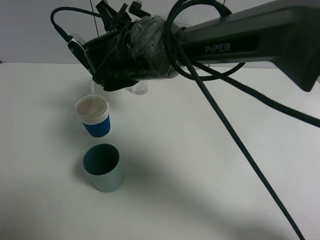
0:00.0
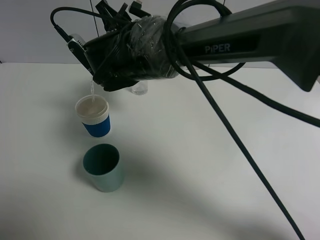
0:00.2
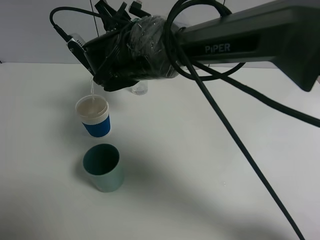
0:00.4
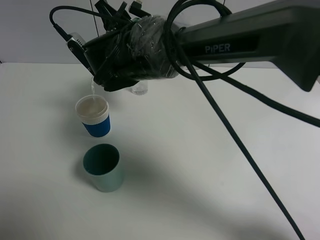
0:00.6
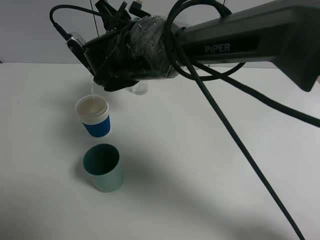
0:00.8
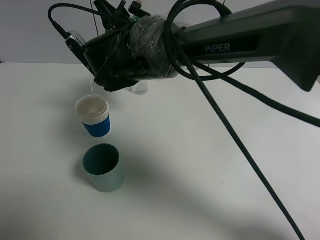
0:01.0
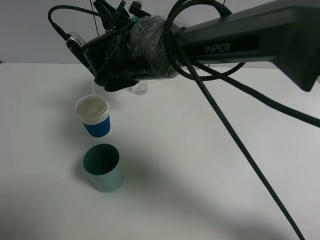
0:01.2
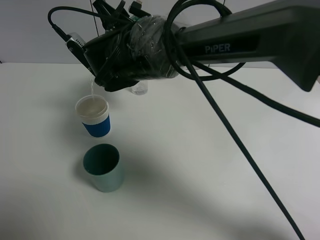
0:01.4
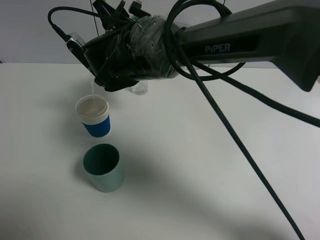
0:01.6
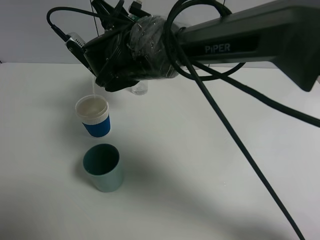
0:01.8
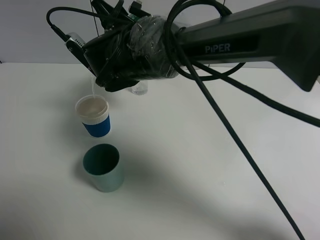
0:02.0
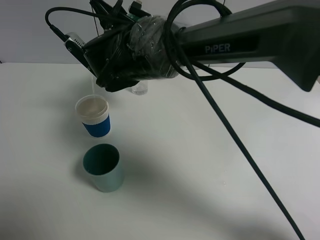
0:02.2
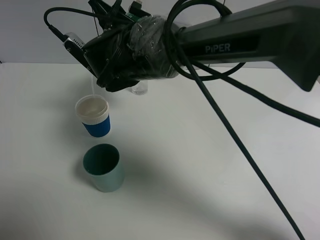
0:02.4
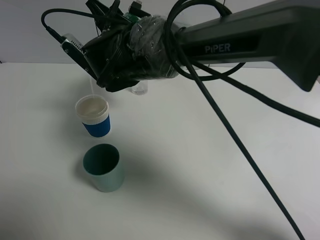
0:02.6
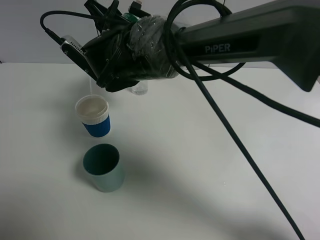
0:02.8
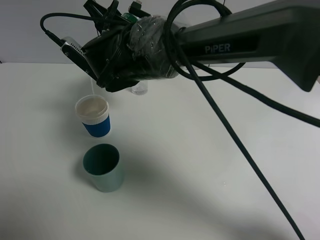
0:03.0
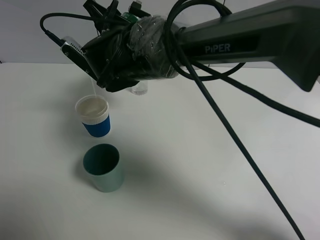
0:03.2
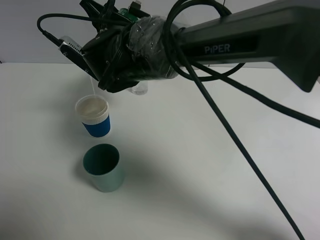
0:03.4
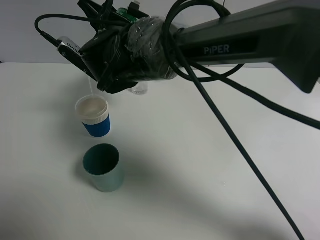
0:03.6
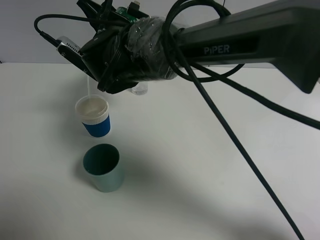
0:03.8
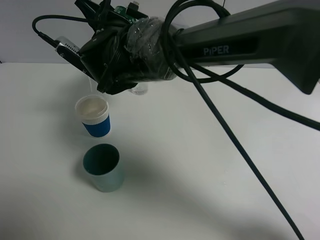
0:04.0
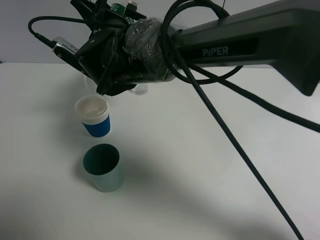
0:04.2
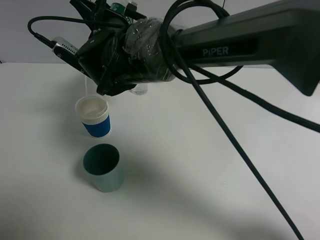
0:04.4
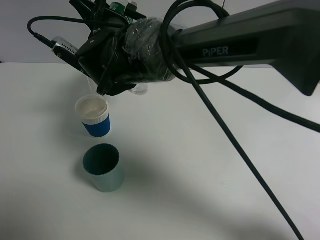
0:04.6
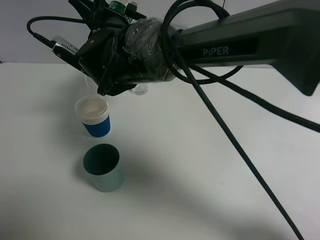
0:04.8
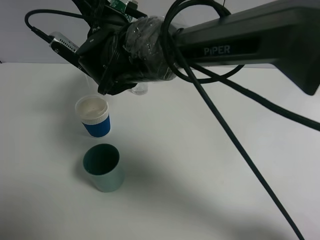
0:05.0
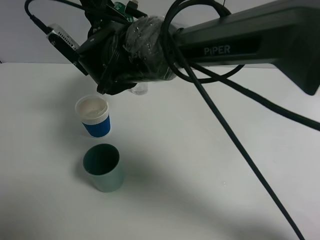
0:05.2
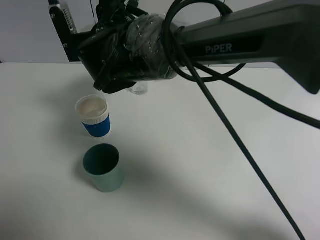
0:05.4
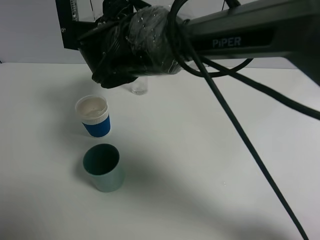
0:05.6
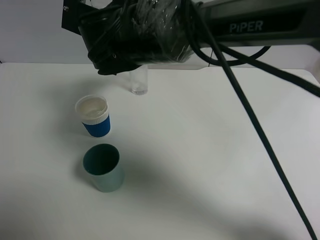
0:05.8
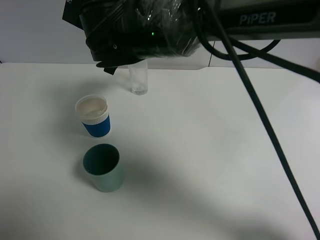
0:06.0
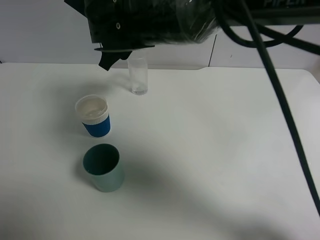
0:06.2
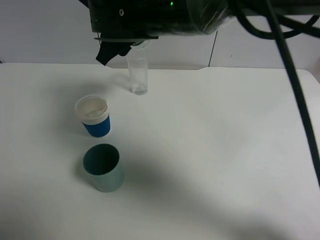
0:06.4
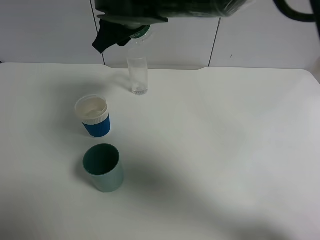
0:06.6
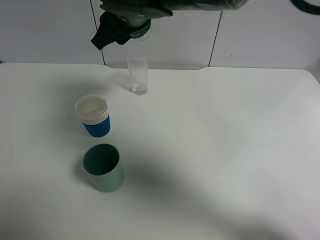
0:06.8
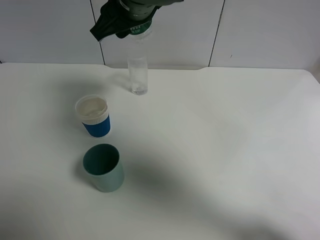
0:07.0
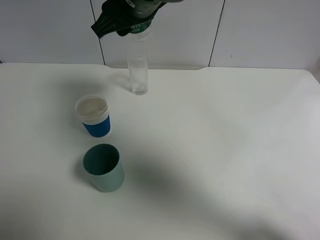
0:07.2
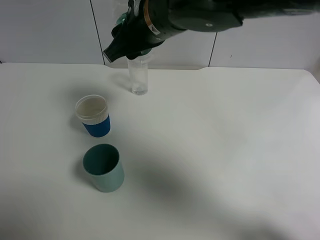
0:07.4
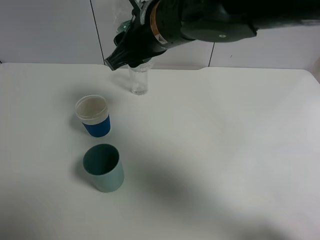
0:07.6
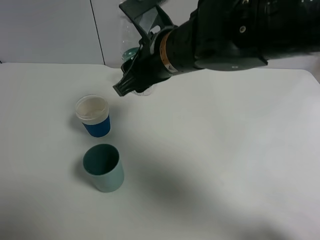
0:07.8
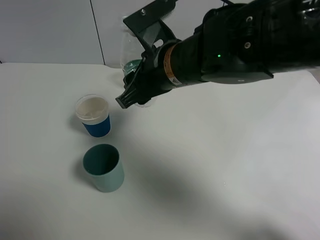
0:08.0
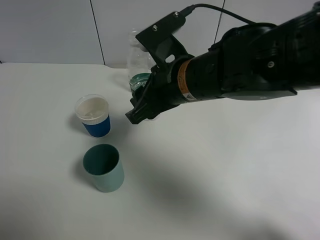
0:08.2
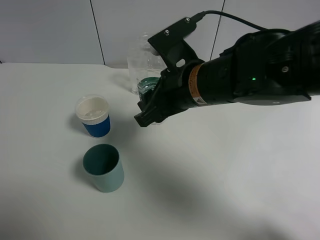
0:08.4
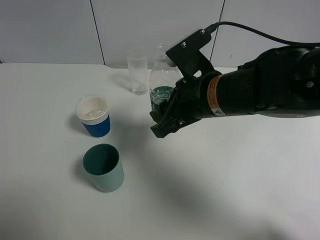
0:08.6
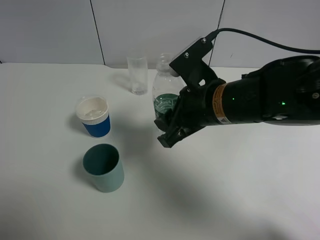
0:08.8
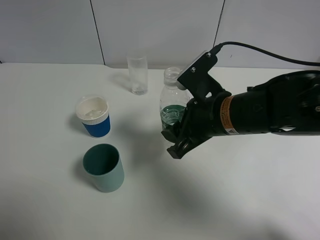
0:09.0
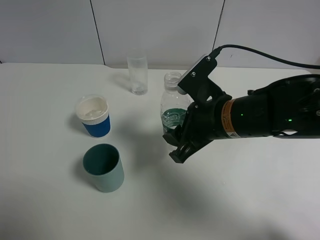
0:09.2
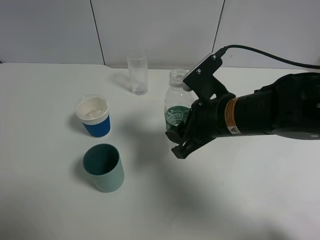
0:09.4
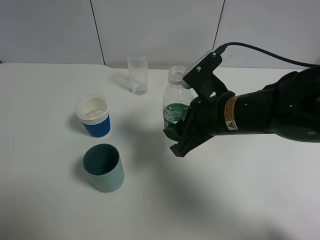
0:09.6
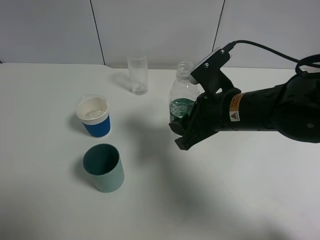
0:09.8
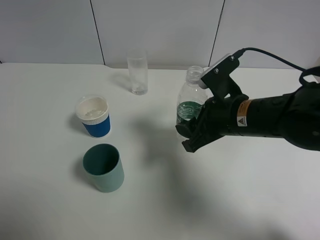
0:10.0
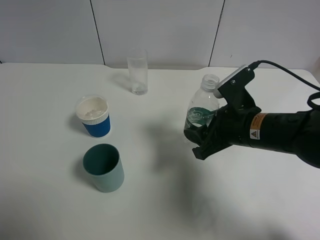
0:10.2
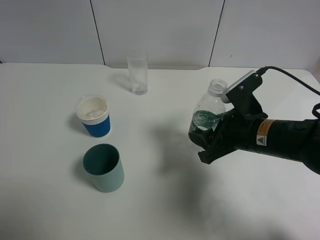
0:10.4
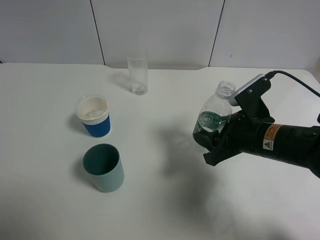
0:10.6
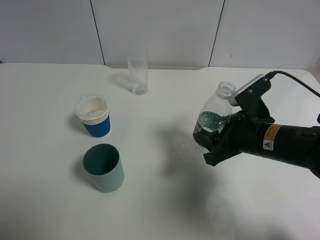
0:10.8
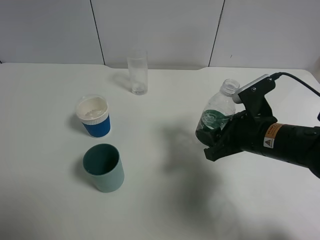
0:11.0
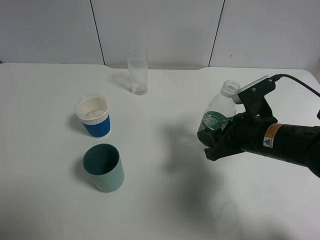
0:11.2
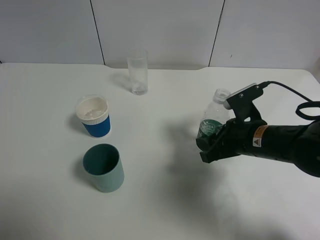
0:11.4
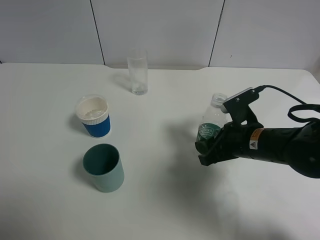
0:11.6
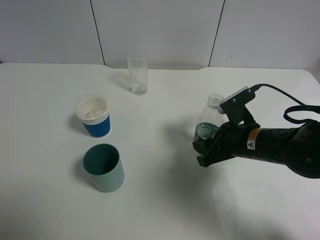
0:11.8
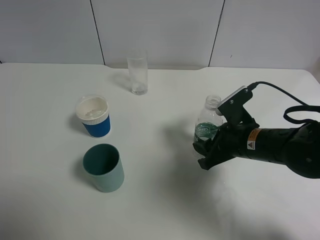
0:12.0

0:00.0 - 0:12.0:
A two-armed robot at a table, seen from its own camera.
Task of the whole recording: use a gripper to hold the bottle of the drink and pour it into a random cup.
Step, 0:00.0 - 0:05.8: Pour the mineral water into the paper cup with the right gripper.
0:00.0 - 0:01.6: Both grippers stay put.
0:01.6 - 0:04.4: There are only small adjustments of the grippers.
0:06.0 - 0:07.6: The right gripper goes roughly 5 cm to the right.
0:07.6 - 0:09.0: The right gripper moves downward, to the right and backward, about 15 cm.
0:09.0 - 0:10.4: The right gripper goes approximately 5 cm to the right.
0:10.4 - 0:12.0: There are only small adjustments of the grippers.

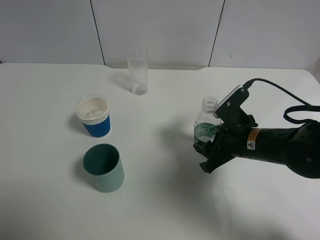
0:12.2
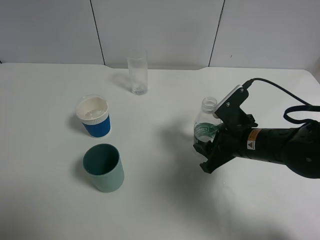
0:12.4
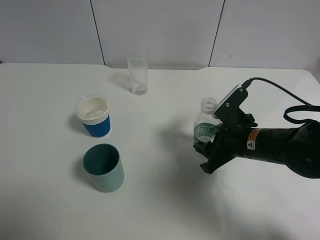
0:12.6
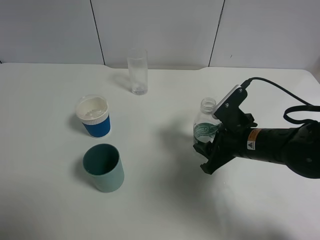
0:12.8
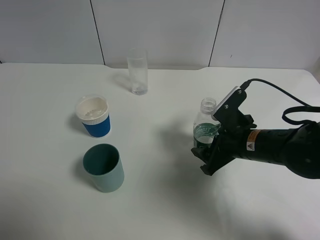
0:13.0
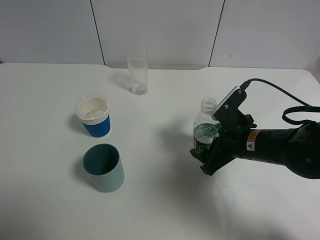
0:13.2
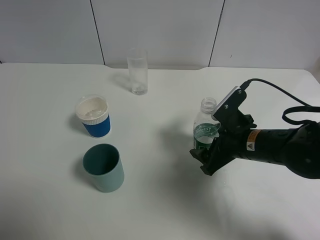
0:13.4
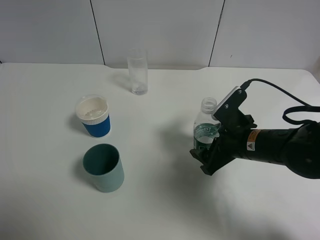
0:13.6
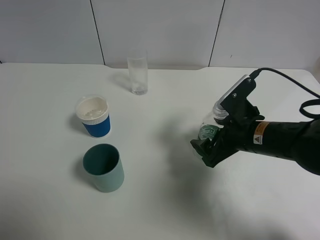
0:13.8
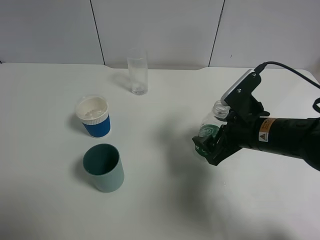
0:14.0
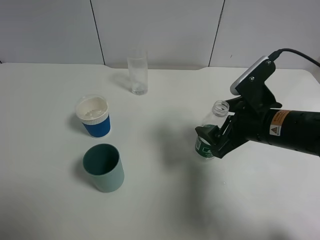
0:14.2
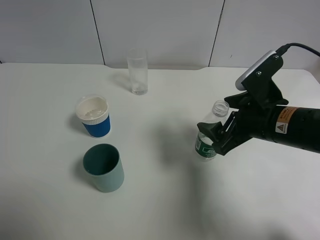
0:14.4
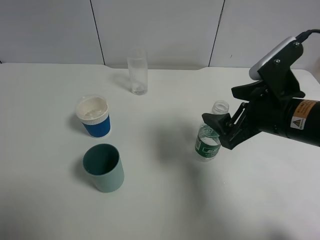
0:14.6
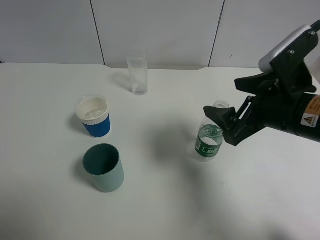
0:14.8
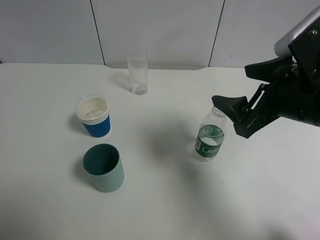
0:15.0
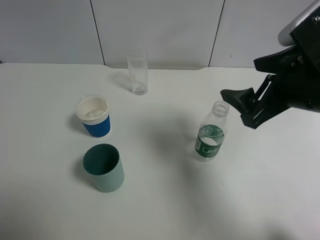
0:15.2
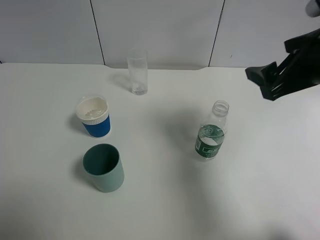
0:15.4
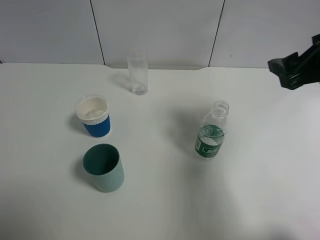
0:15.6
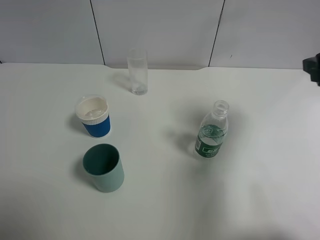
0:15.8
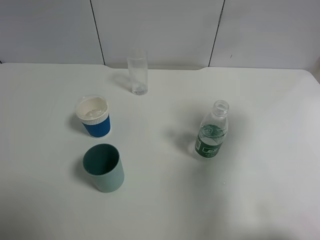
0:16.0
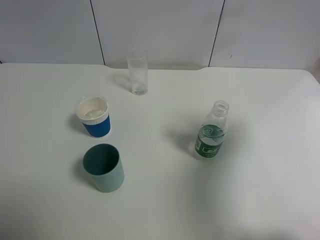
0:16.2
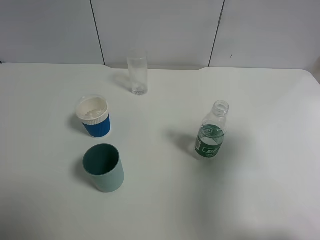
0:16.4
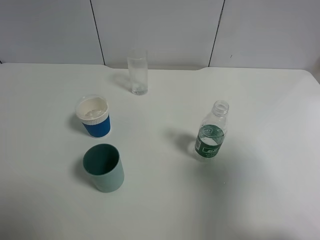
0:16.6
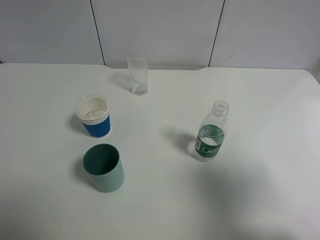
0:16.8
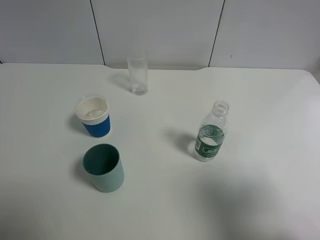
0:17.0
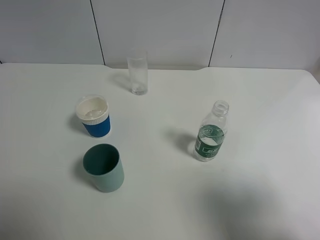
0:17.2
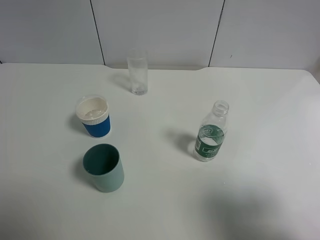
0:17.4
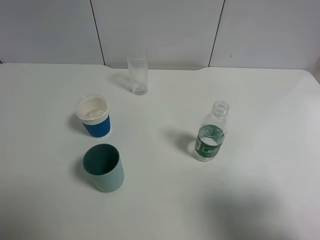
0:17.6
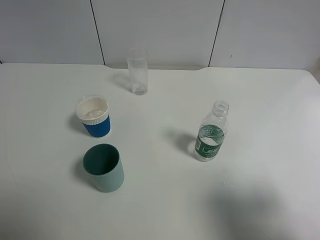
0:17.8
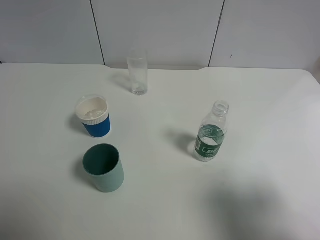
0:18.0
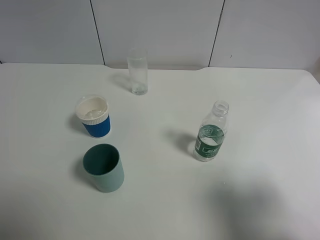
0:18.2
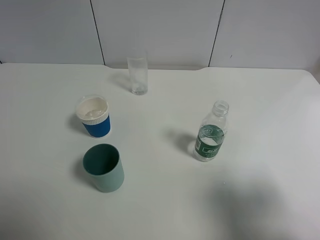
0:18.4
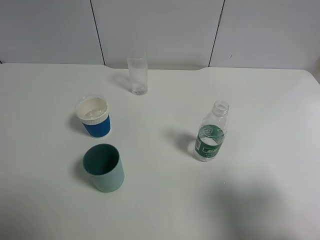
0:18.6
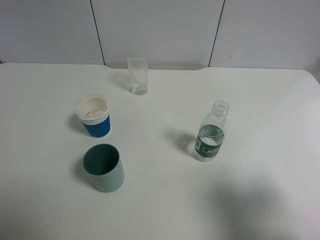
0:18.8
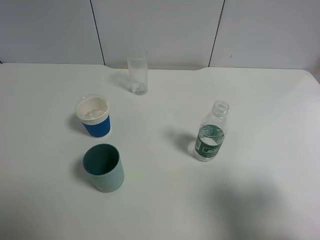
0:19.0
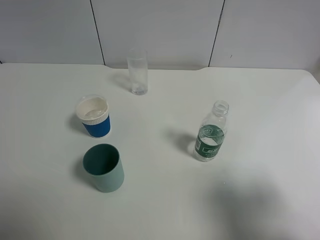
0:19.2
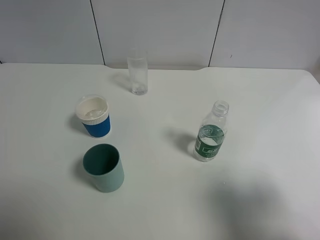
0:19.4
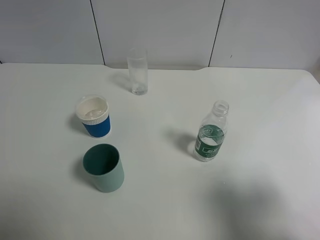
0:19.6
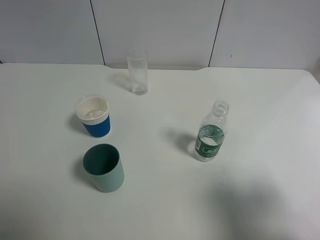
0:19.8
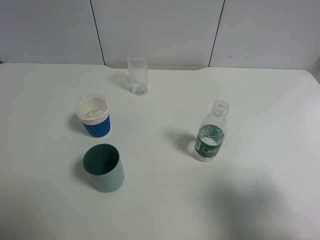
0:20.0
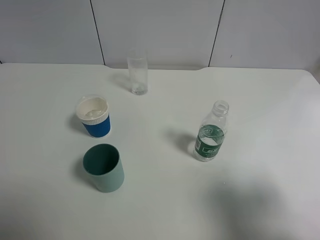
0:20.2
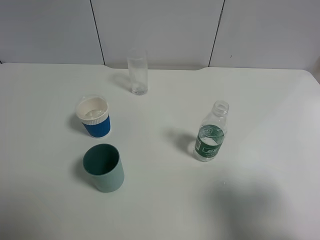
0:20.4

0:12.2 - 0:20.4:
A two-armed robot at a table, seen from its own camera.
Task of the whole recording: use a gripper to hold the bottle of the drink and pour it into a random cup.
Step, 0:12.2 - 0:14.4: Place the mineral water bottle on the table with the right gripper.
0:12.2 - 0:13.8: The right gripper opens.
0:13.8 - 0:15.4: The right gripper goes about 15 cm upward and to the right.
0:15.4 - 0:17.2: The right gripper travels backward by about 20 cm.
0:18.8 - 0:20.4: The two grippers keep their place.

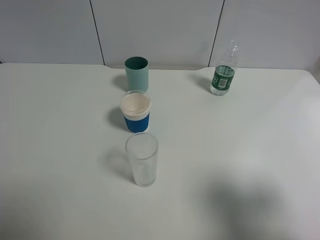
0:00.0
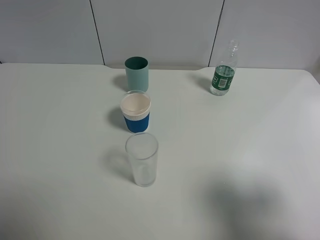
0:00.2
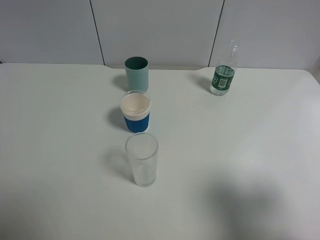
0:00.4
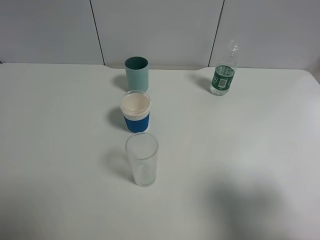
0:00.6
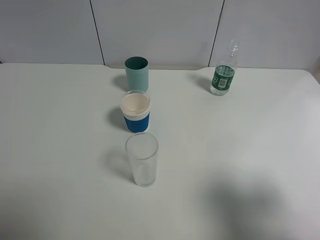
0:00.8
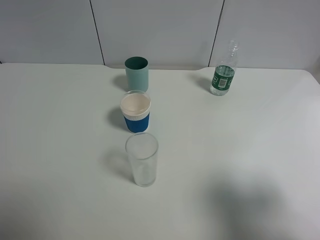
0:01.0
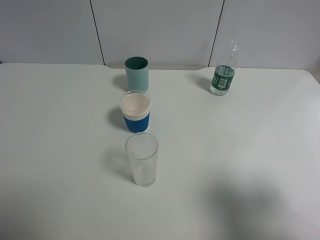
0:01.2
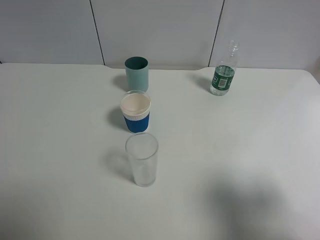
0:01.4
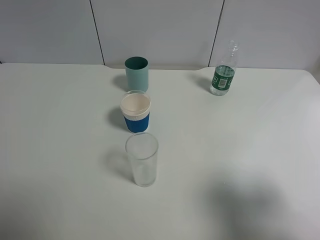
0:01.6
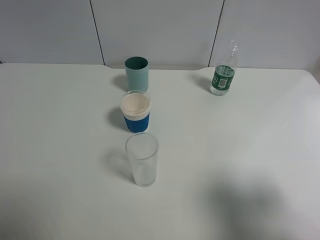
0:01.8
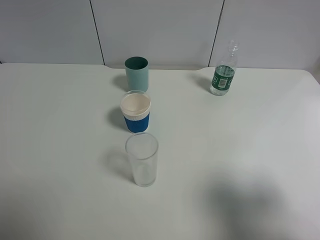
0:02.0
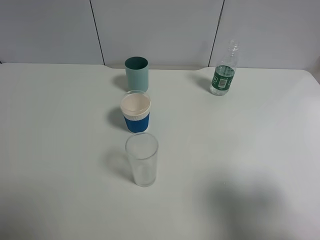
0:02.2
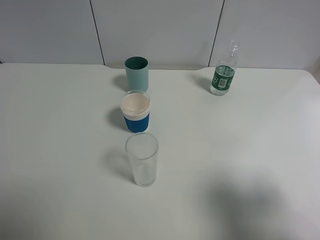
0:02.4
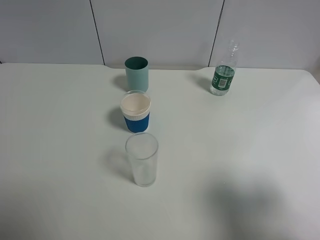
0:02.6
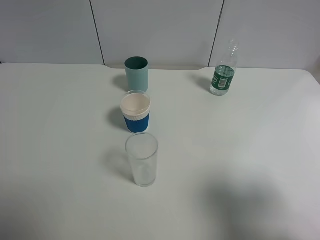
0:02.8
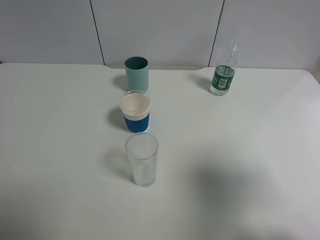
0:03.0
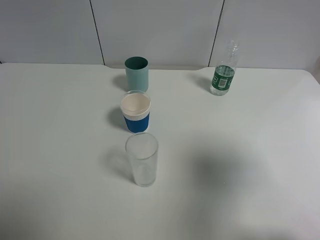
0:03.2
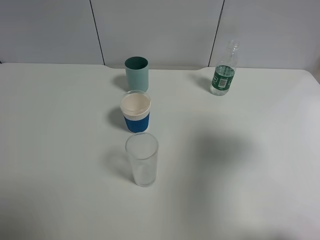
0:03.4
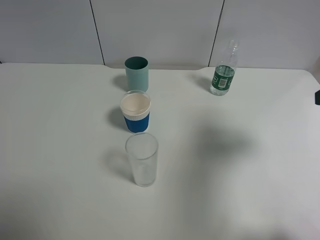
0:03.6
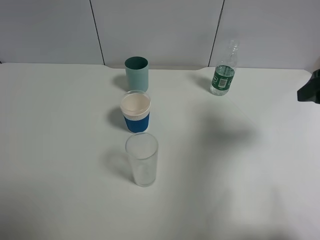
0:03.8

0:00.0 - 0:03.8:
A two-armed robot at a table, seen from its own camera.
Task of the whole recording: use a gripper to hold the bottle of the drink and pour it into a random cup.
0:00.0 - 0:02.6: Neither gripper changes place.
0:02.6 - 0:03.8: The right gripper goes roughly 20 cm forward.
